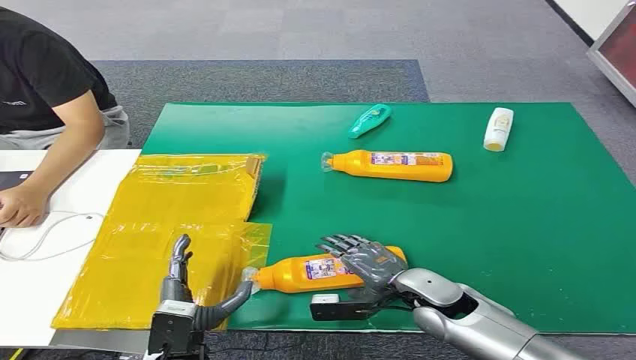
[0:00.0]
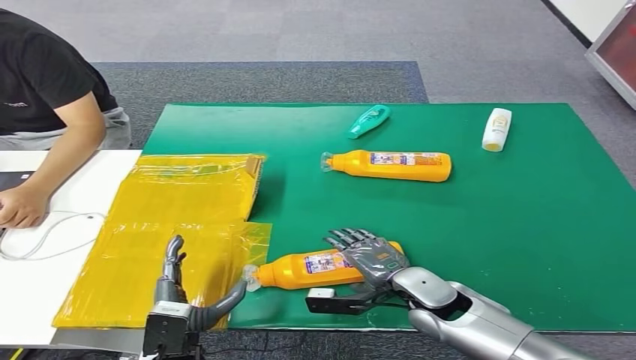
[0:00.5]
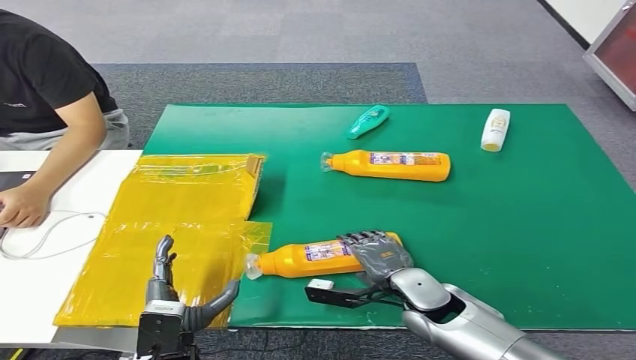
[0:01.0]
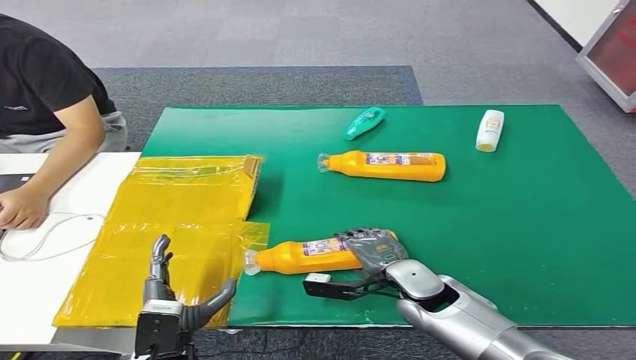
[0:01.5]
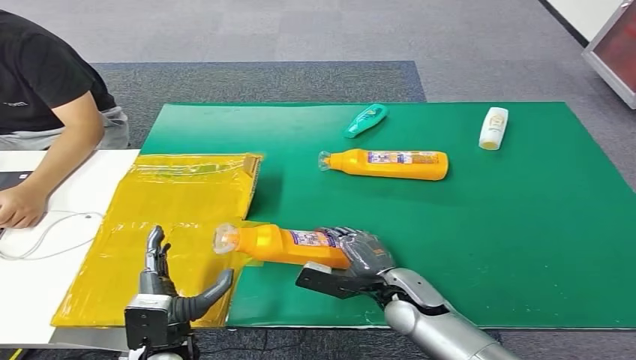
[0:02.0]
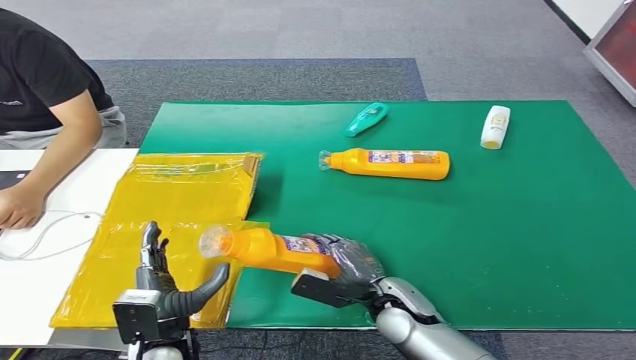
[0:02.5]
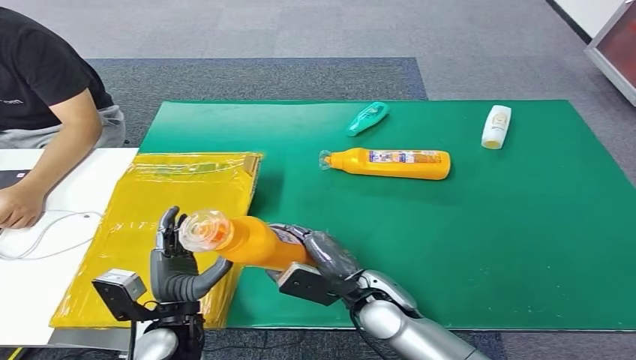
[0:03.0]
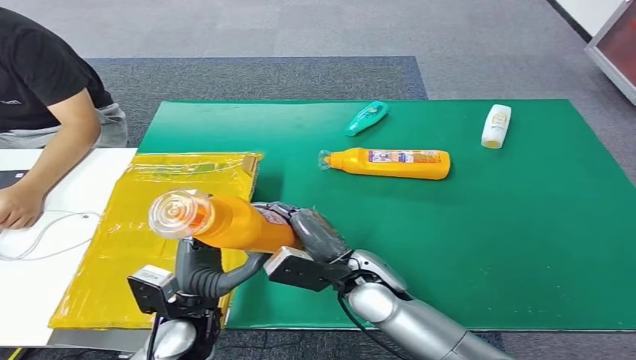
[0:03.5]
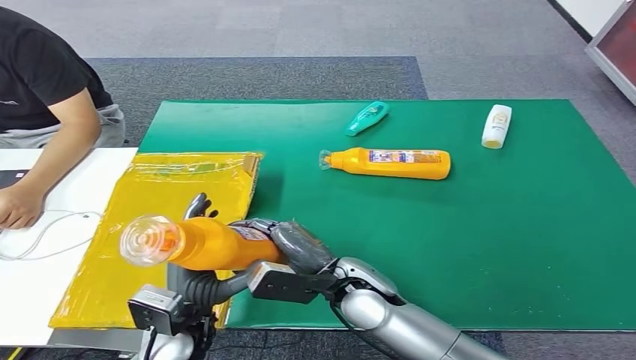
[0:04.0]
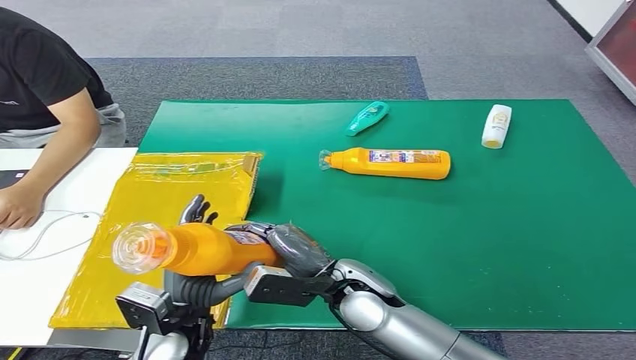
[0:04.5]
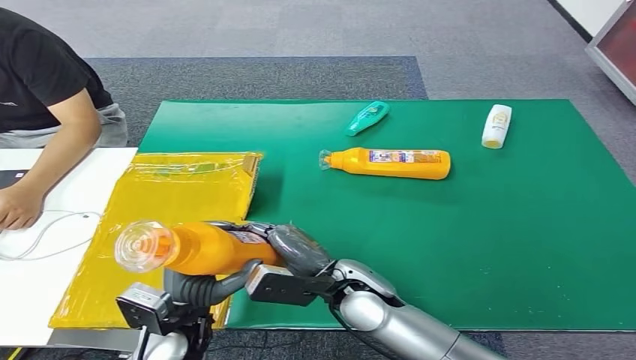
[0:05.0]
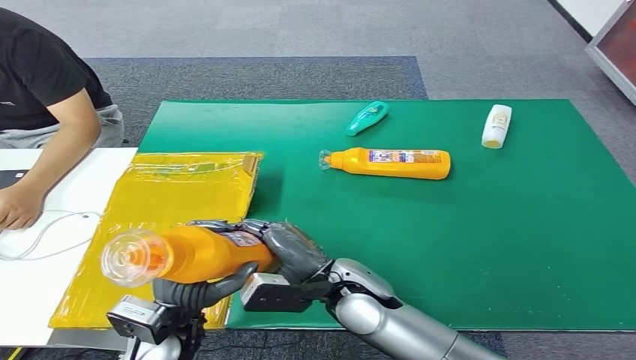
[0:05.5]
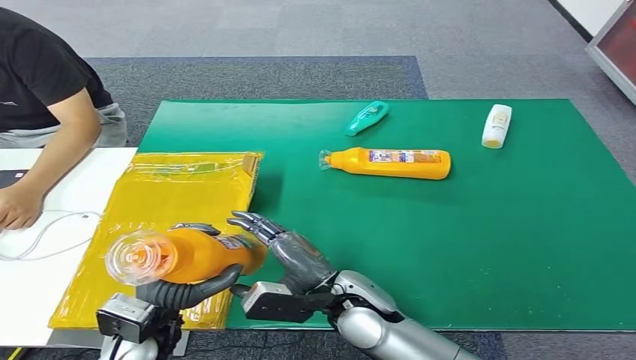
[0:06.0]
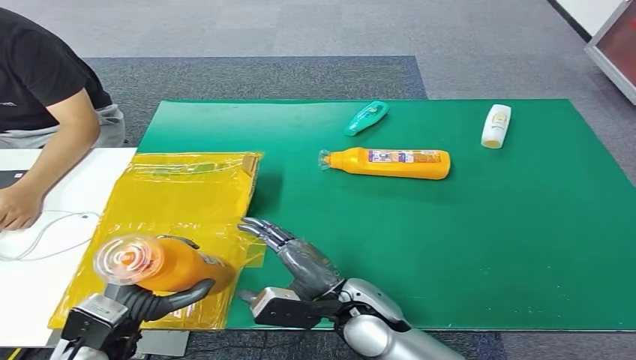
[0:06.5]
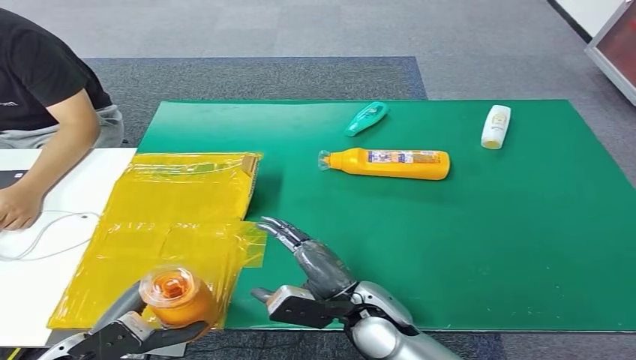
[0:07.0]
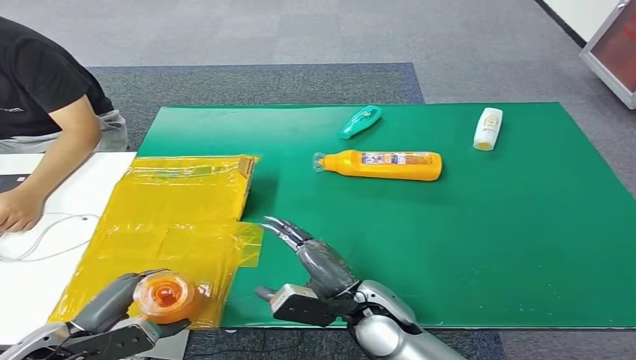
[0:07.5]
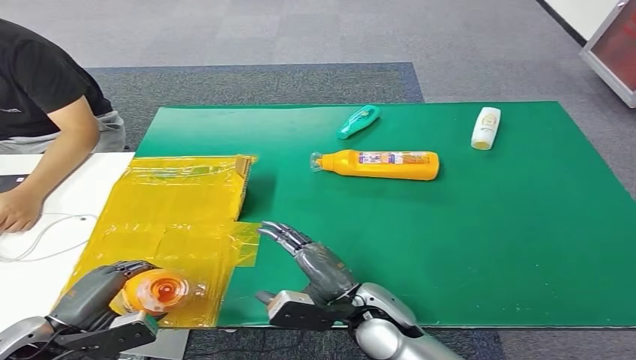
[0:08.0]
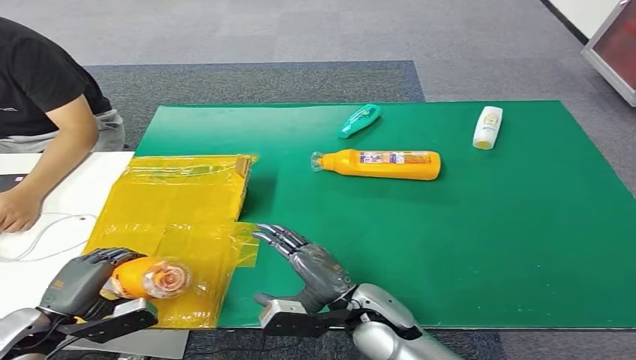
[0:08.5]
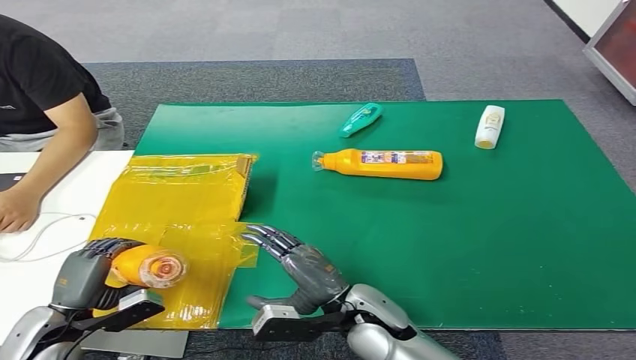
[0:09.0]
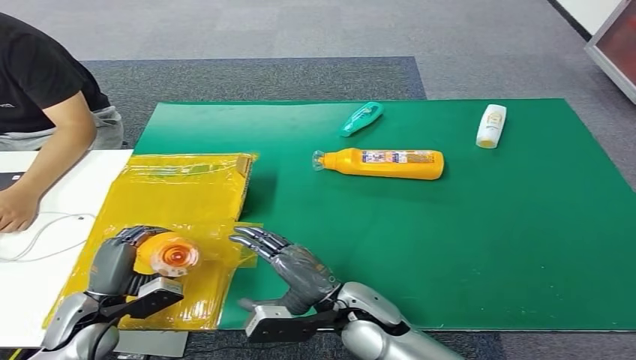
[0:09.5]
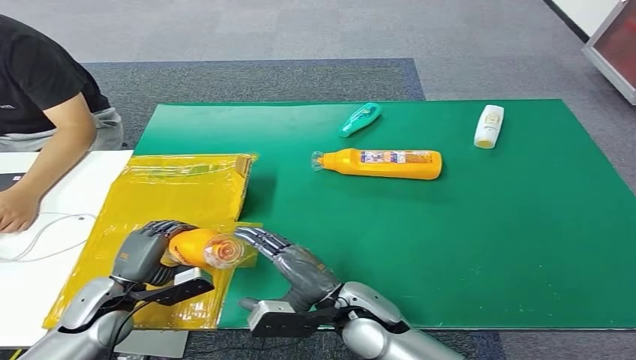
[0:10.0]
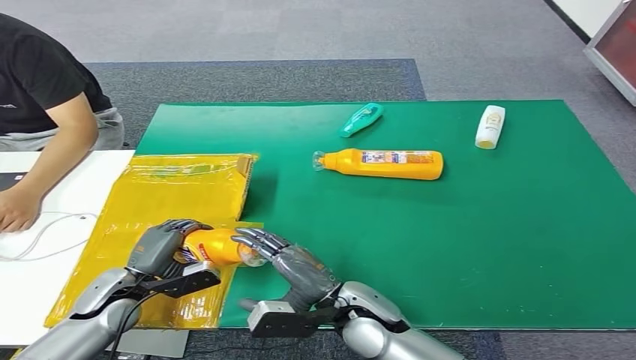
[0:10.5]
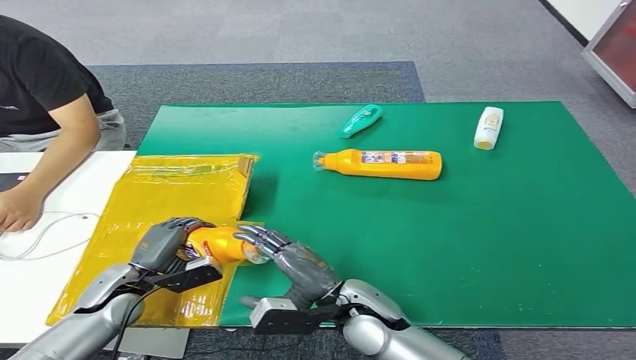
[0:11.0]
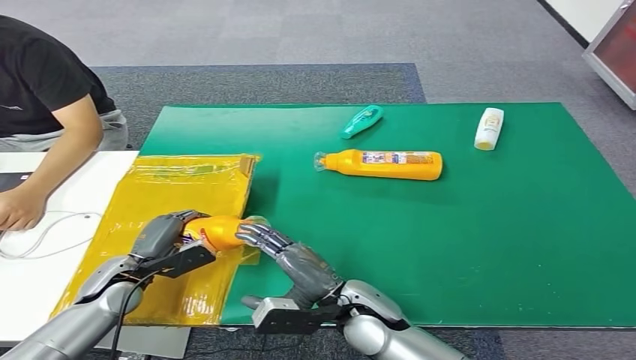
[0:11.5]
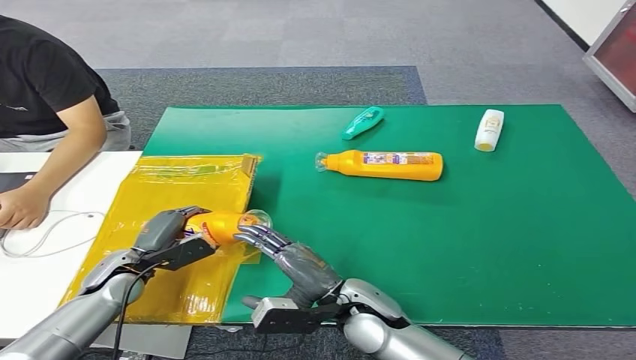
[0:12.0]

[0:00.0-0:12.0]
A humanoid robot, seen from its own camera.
Step, 0:00.0 to 0:02.5: Pick up the bottle from the table.
0:02.0 to 0:04.0: The left hand shifts by about 5 cm. The right hand is displaced to the left and upward by about 10 cm.
0:04.0 to 0:06.0: The hands make only small movements.
0:08.0 to 0:10.0: The left hand is displaced forward and downward by roughly 10 cm.
0:10.0 to 0:12.0: The left hand heads forward, covering about 5 cm.

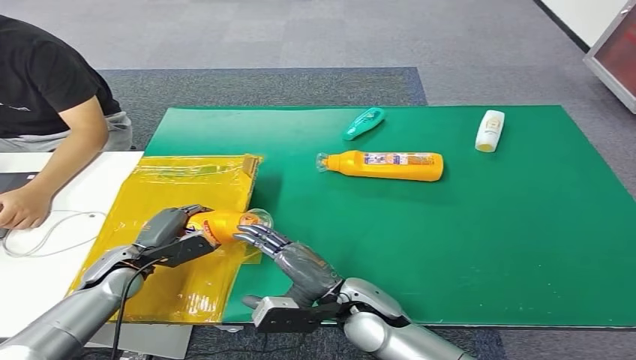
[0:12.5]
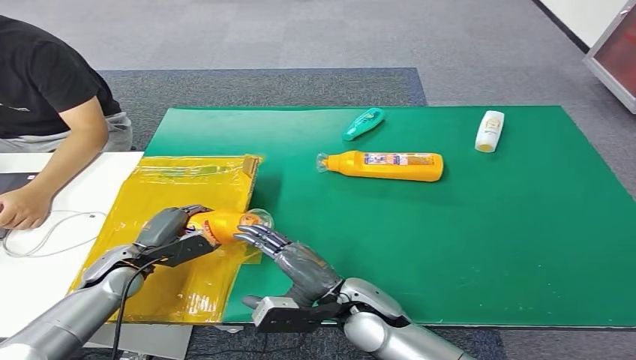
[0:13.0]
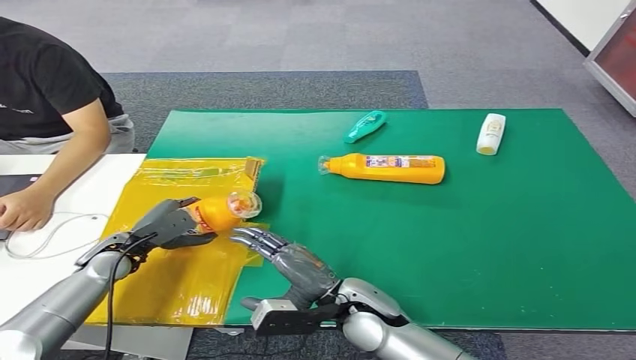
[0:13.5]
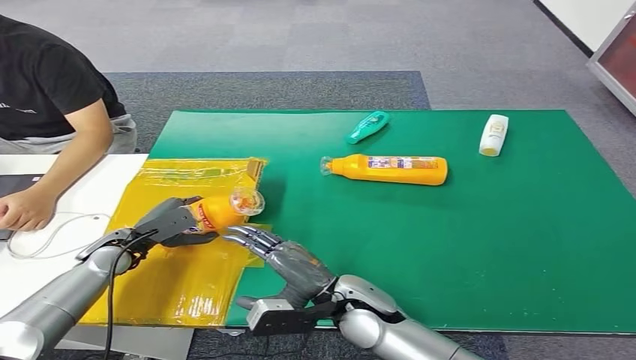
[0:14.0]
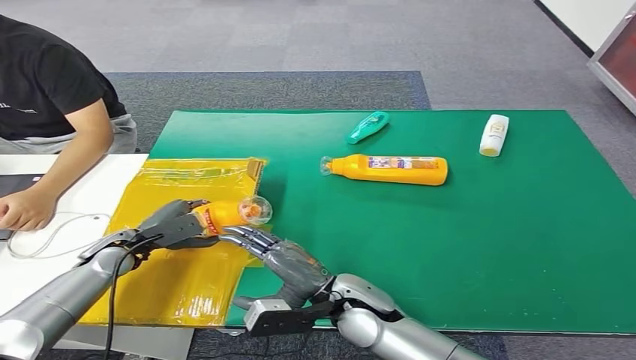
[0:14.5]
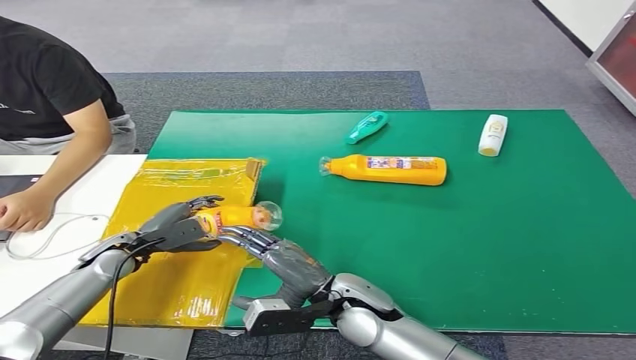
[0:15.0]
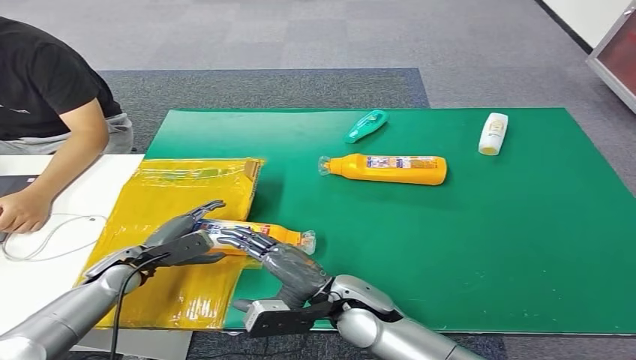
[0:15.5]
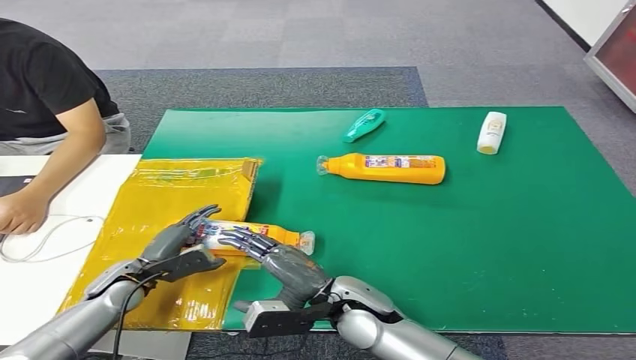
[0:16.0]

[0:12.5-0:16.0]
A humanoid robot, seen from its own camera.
Step, 0:12.5 to 0:16.0: Turn the bottle to the front side.
0:12.5 to 0:14.5: The hands stay close to where they were, moving slightly.
0:14.5 to 0:16.0: The left hand moves approximately 5 cm.

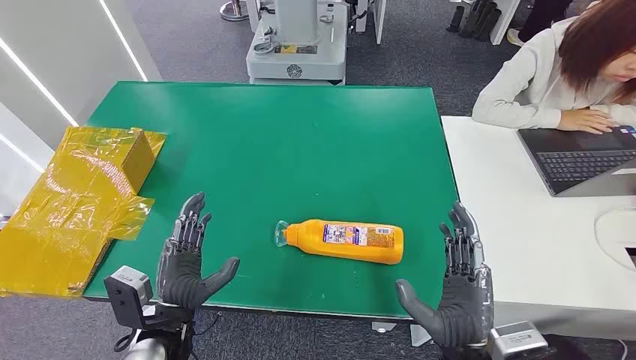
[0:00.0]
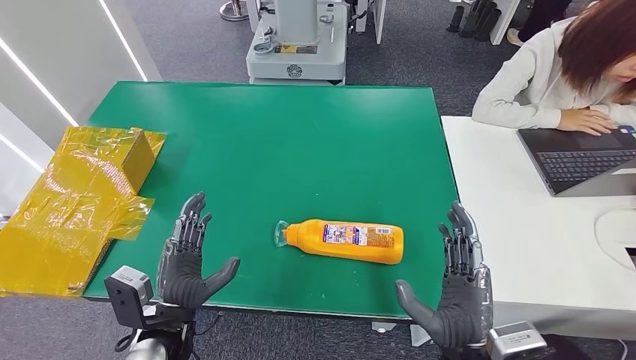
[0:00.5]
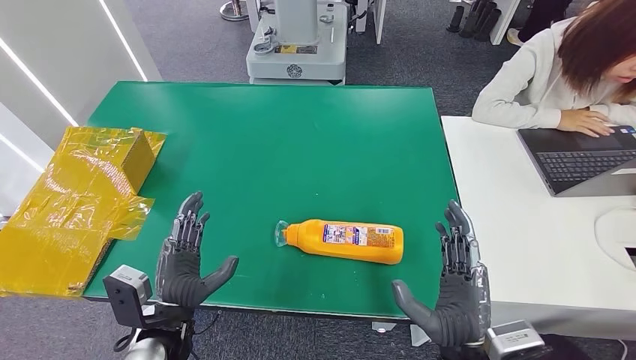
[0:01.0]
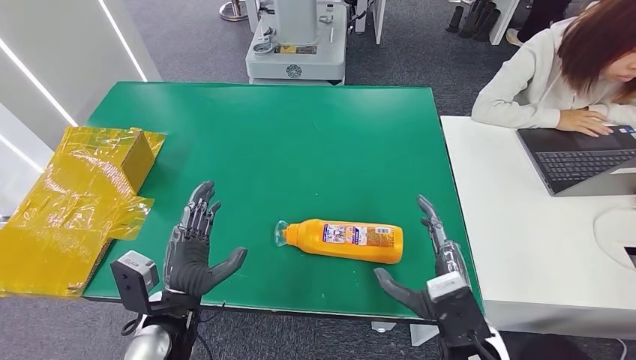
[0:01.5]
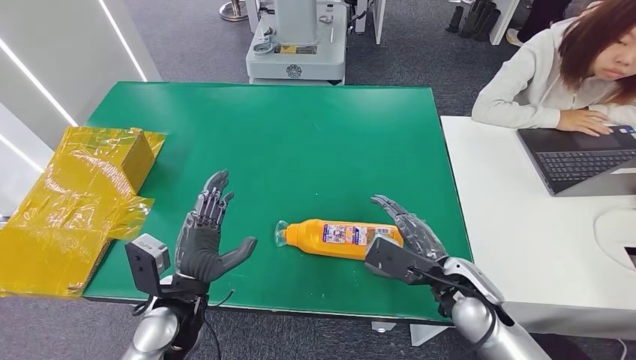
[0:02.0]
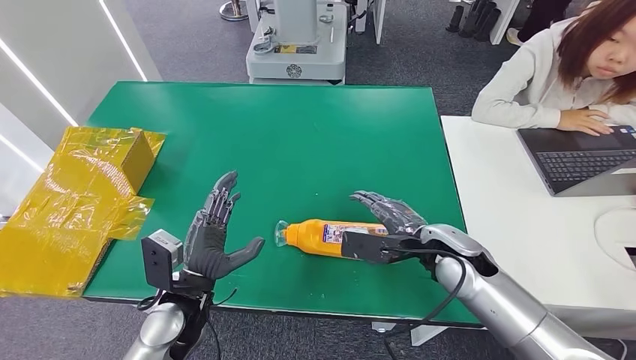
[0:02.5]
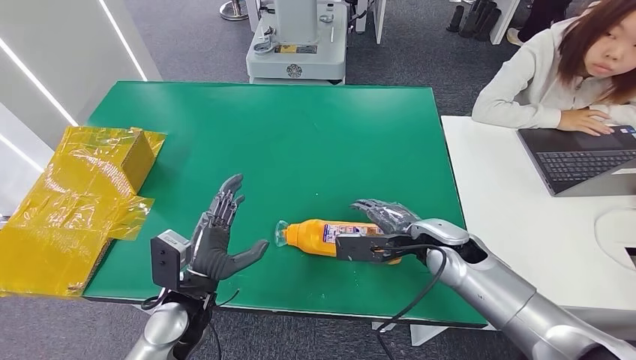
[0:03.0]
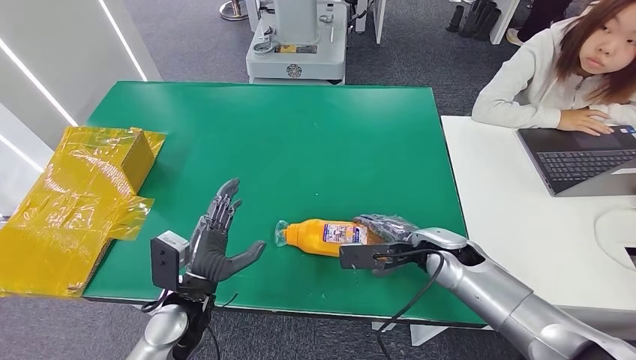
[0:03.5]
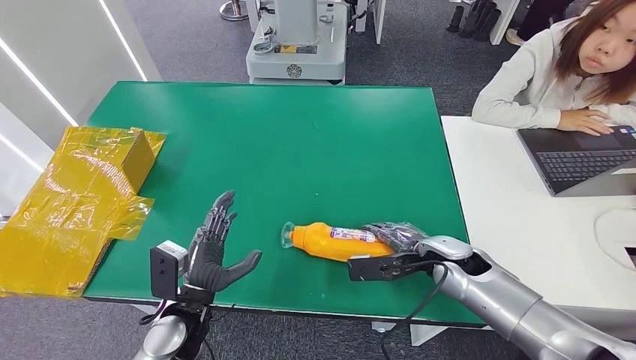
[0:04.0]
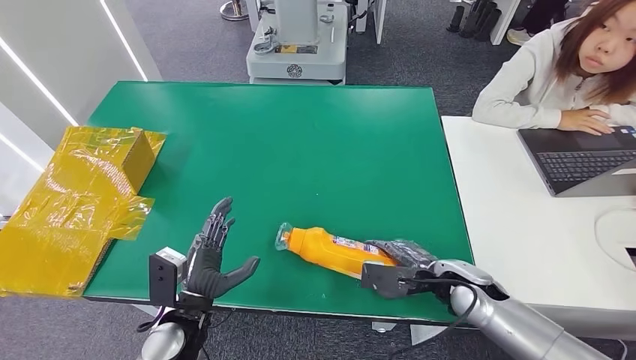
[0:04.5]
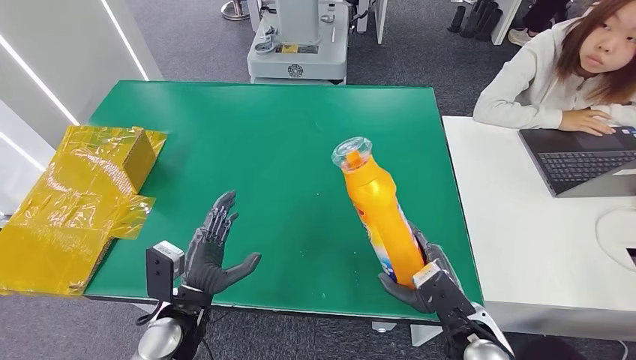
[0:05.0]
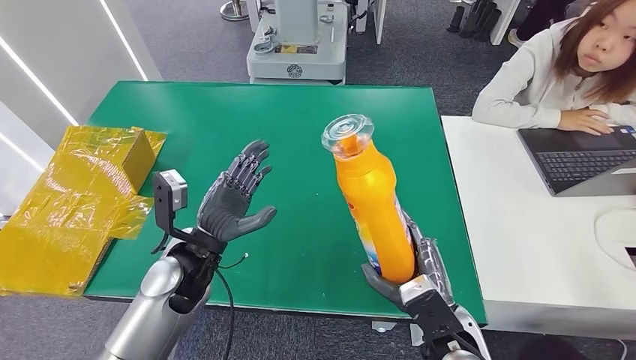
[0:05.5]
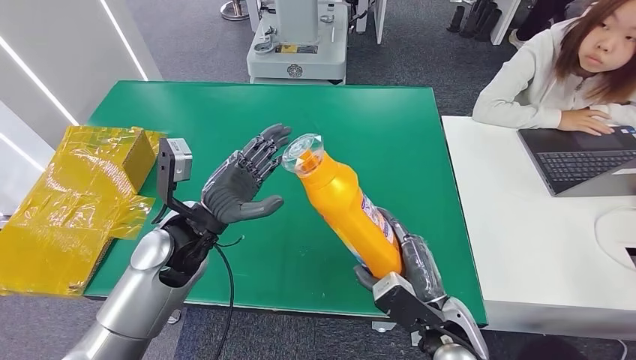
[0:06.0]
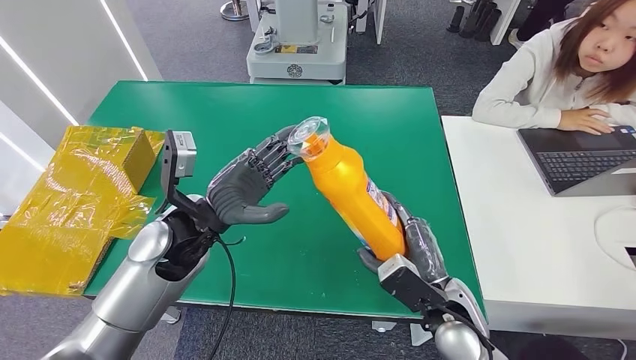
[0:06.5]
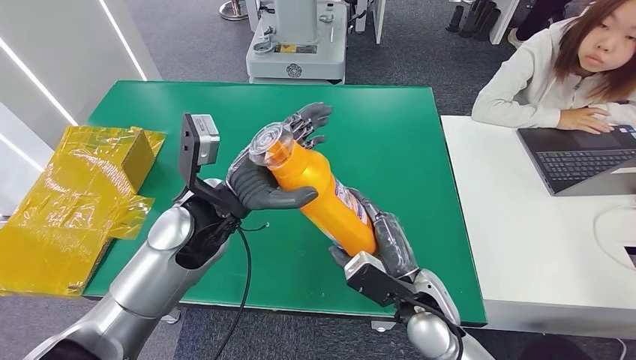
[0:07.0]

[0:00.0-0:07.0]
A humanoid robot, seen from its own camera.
Step, 0:00.0 to 0:05.0: Pick up the bottle from the table.
0:02.0 to 0:03.5: The right hand travels forward by some 10 cm.
0:03.5 to 0:05.0: The right hand moves backward, some 15 cm.
